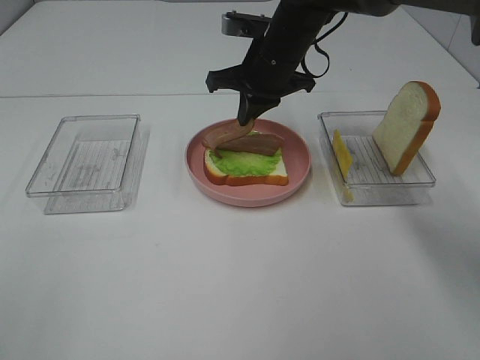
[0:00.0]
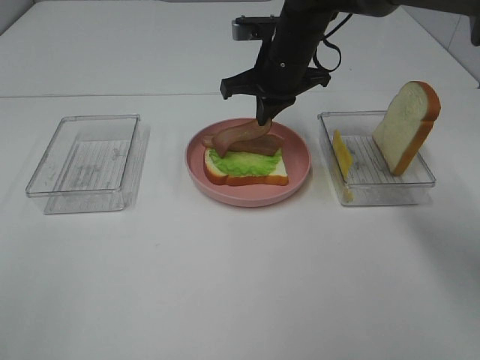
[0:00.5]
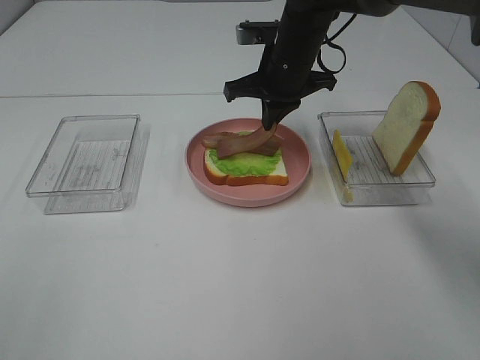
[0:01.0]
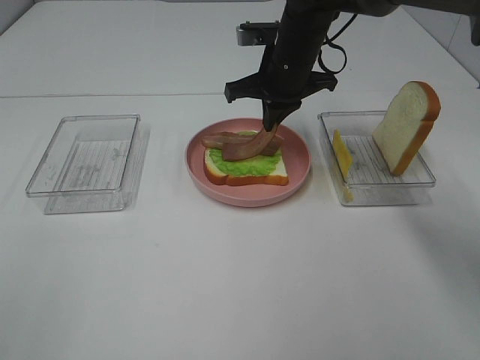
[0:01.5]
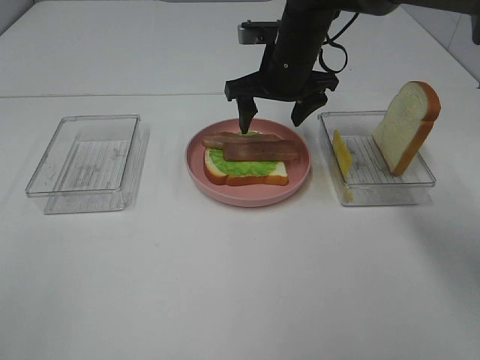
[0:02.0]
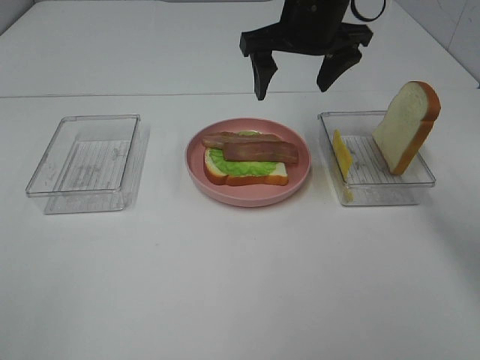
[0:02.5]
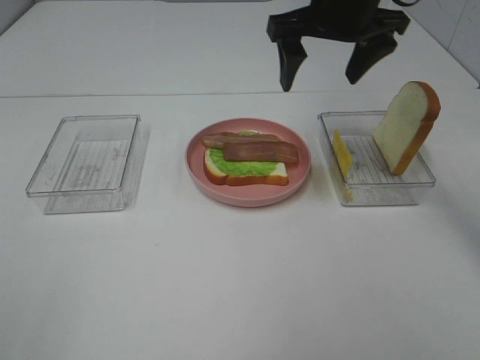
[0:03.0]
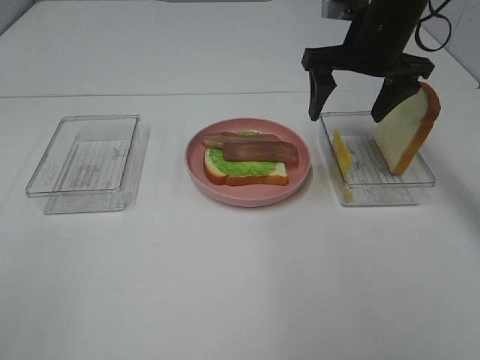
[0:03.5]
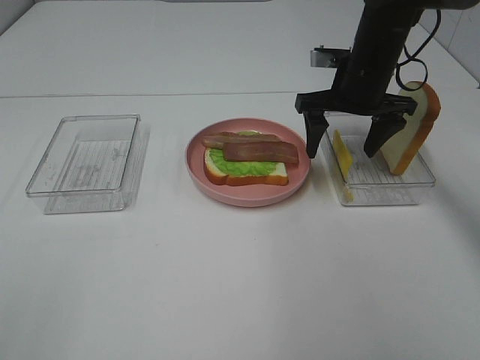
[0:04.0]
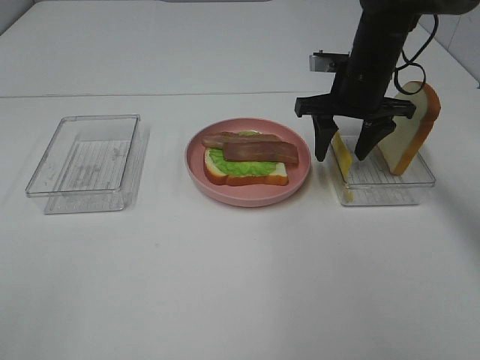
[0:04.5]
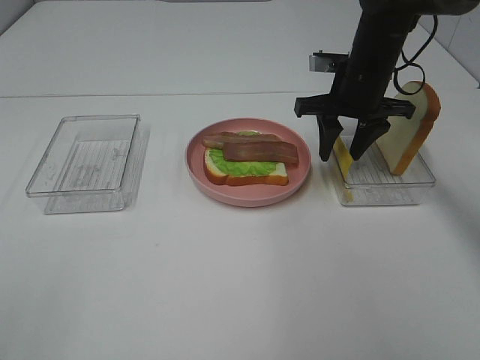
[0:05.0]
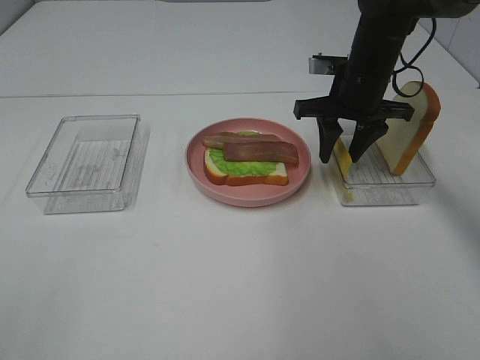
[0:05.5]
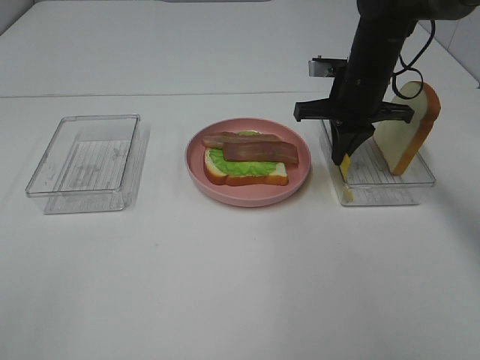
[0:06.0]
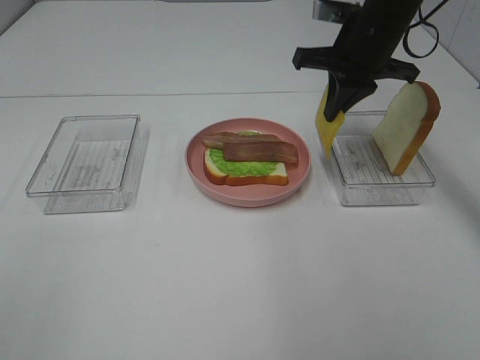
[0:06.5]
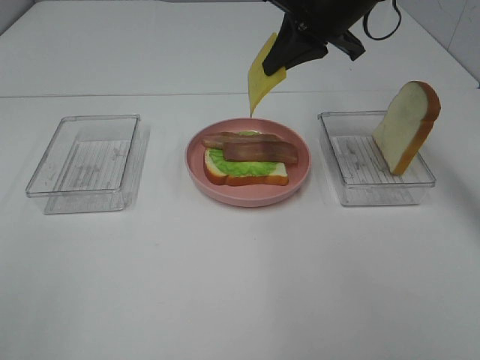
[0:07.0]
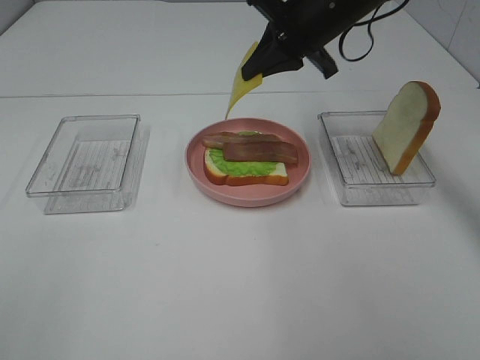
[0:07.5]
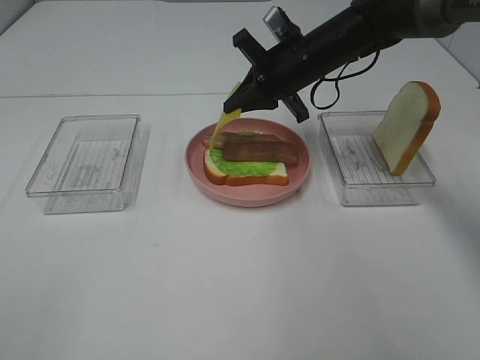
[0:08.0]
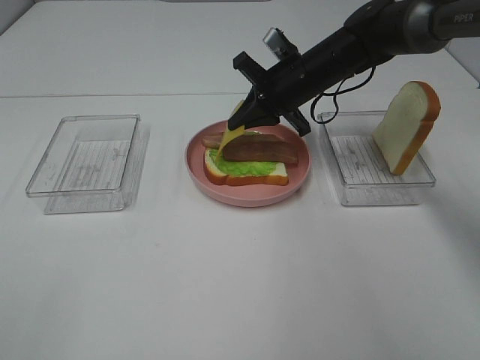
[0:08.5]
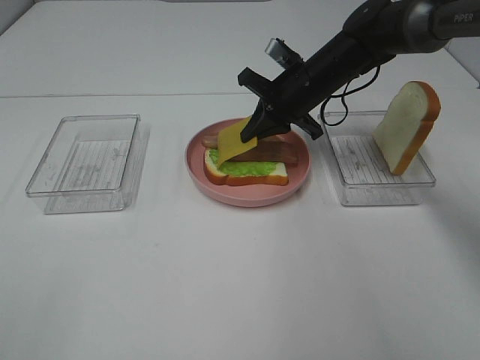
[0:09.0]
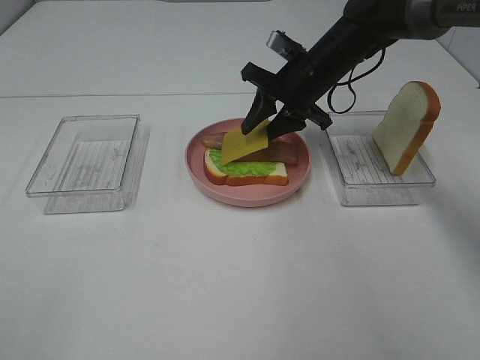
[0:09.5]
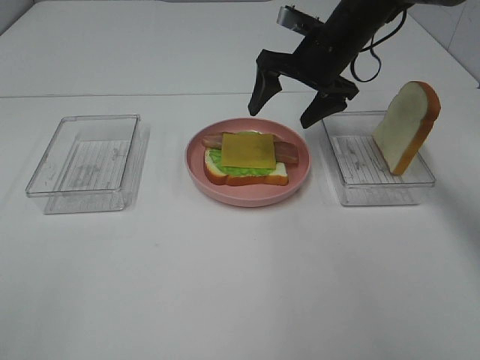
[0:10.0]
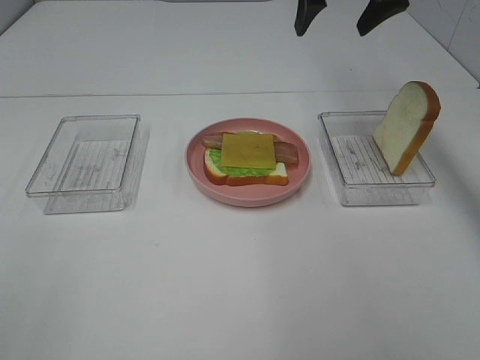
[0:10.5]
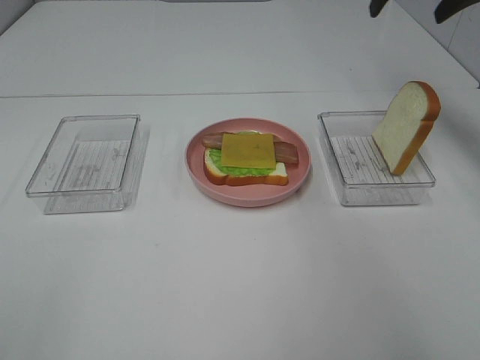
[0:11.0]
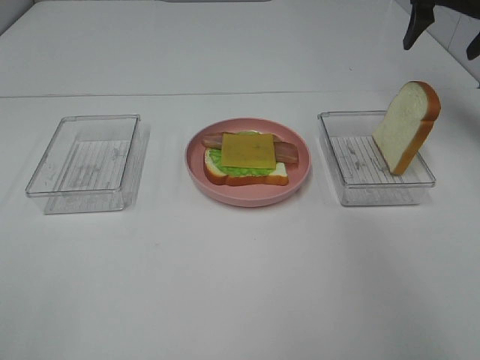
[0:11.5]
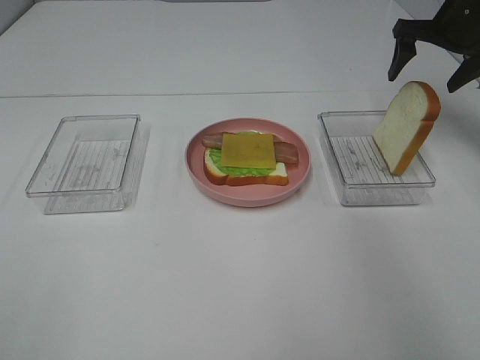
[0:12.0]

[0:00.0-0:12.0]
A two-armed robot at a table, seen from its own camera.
Task of the whole recording: Make sandwiches.
Step, 0:00.0 to 0:02.0: Right hand:place bacon on bacon.
Step, 0:02.5 to 0:06.0: Right hand:grab the cheese slice.
Step, 0:06.5 to 0:09.5: Right hand:place the cheese slice on top of the bacon.
0:00.0 to 0:02.0: The right gripper opens its fingers.
0:02.0 to 0:04.0: The right gripper moves to the right, approximately 10 cm, and goes upward and returns, some 10 cm each way.
0:04.0 to 0:06.0: The right gripper closes its fingers.
0:06.0 to 0:08.0: The right gripper heads to the left, covering some 5 cm, and moves about 10 cm upward and comes back.
0:08.0 to 0:10.0: The right gripper opens its fingers.
0:10.0 to 0:12.0: The right gripper moves to the right, about 20 cm.

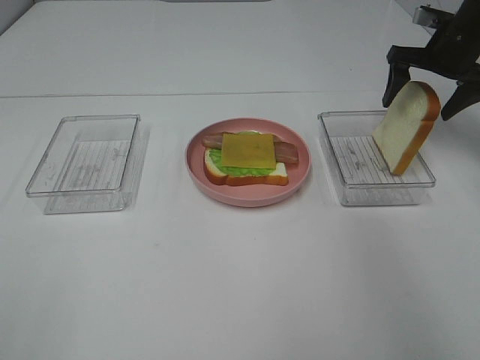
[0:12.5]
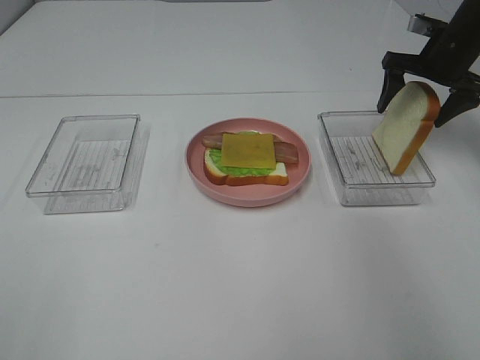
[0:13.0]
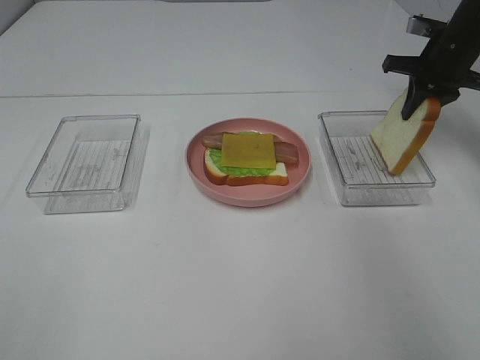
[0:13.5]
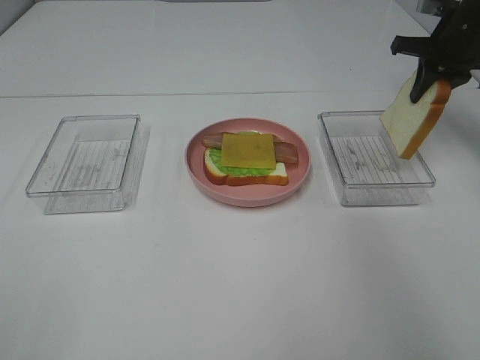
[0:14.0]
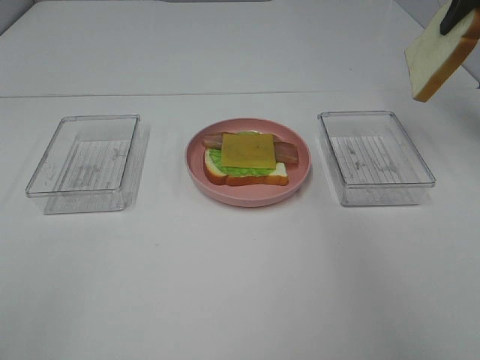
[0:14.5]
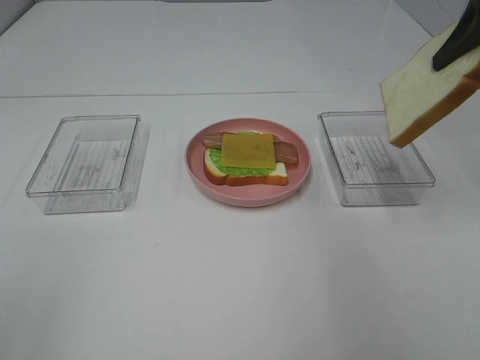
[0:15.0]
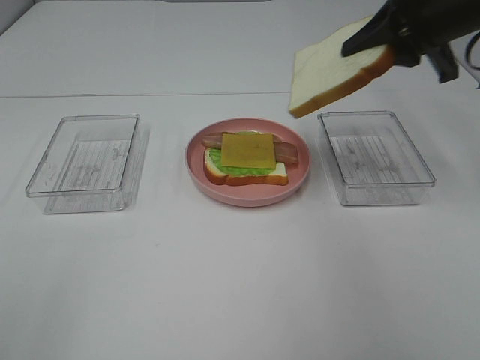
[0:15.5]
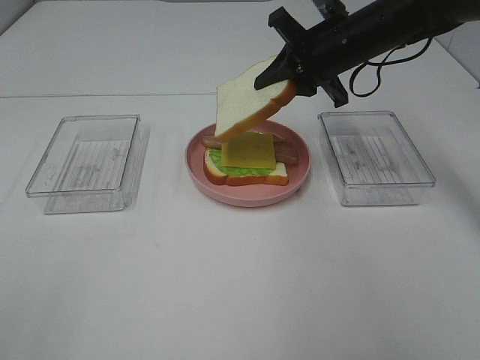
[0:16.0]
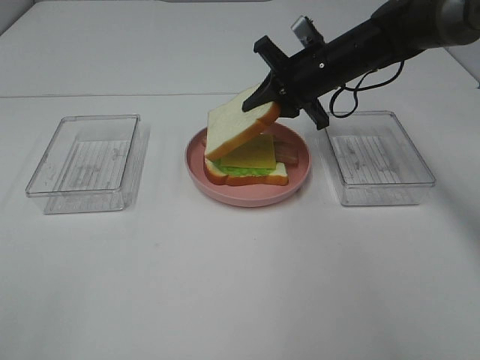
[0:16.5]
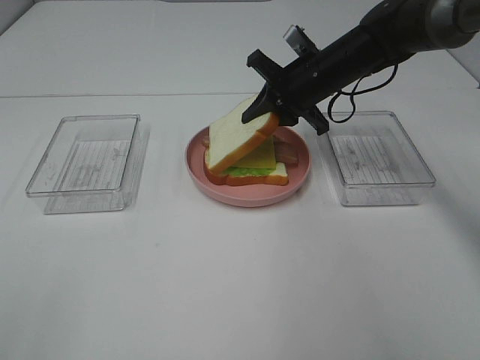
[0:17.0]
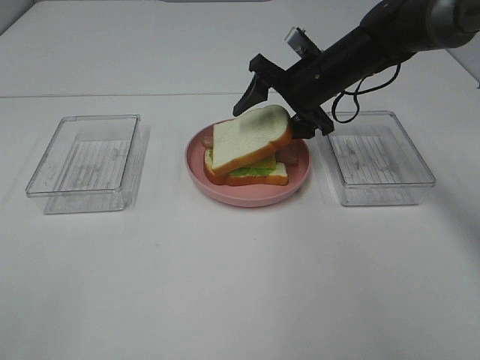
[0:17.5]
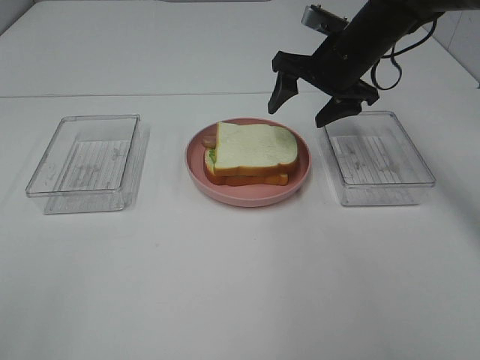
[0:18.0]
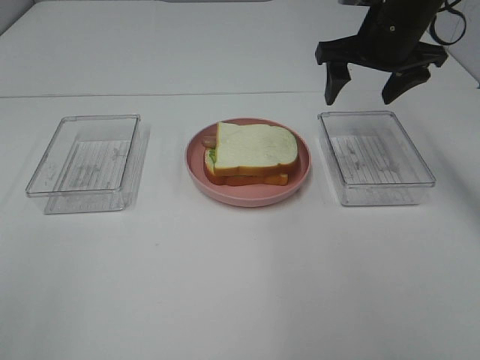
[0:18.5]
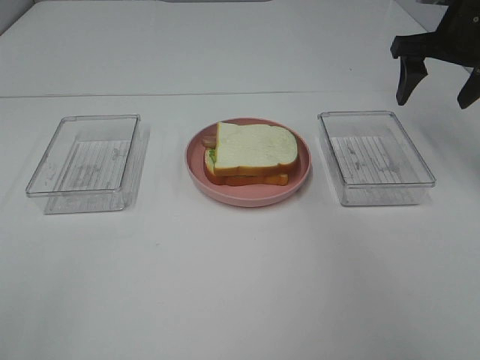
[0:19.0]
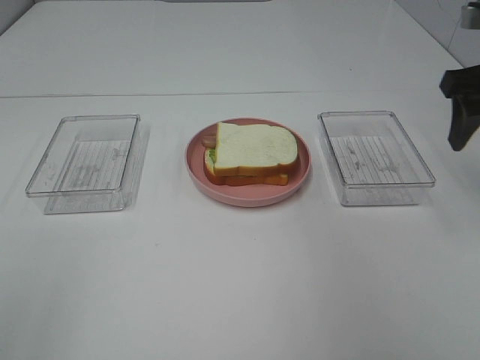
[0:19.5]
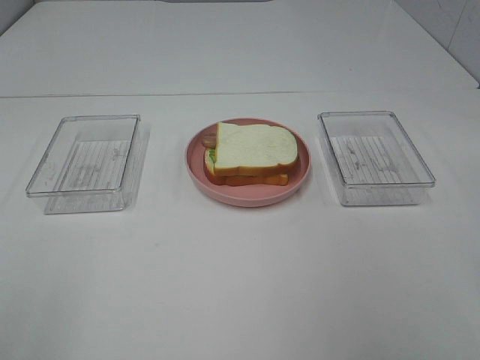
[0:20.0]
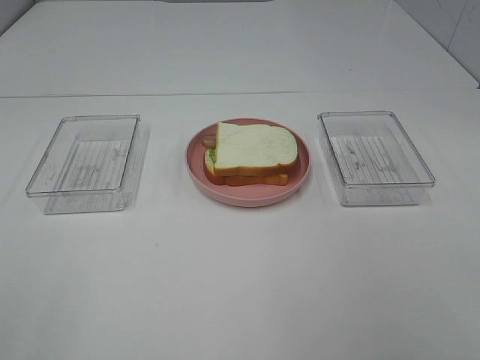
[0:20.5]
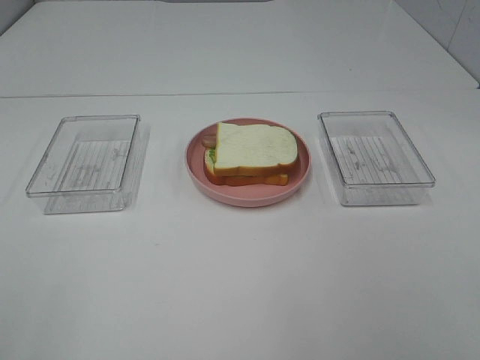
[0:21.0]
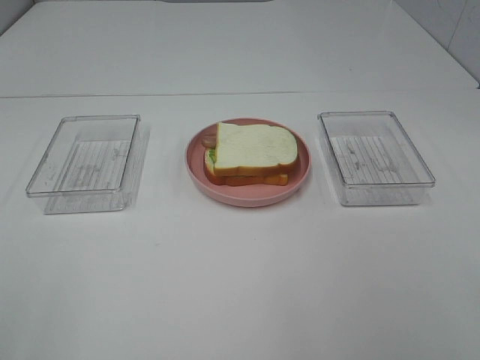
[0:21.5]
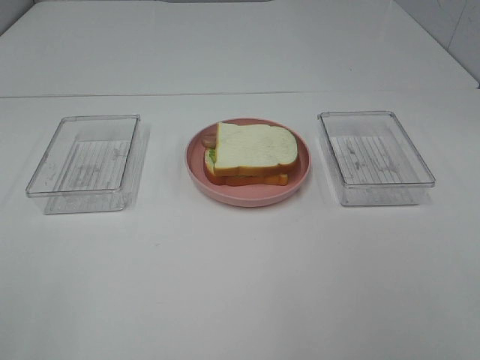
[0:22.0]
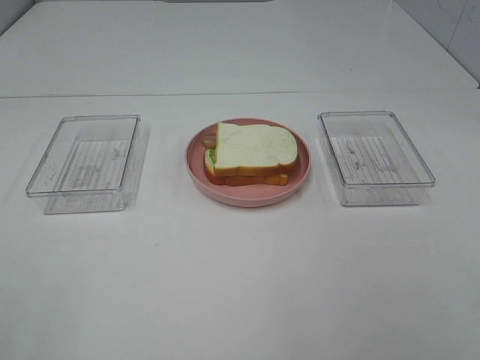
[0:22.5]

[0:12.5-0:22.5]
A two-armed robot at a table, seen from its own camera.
Task of the whole recording: Make sandwiches.
Step, 0:14.0 to 0:17.5: Right hand:place the bread slice on the cheese slice.
0:12.5 to 0:14.5: The right gripper heads upward and backward, covering roughly 15 cm, and closes its fingers.
0:14.5 to 0:16.5: The right gripper shifts roughly 25 cm to the left and downward.
0:16.5 to 0:18.5: The right gripper moves upward and to the right, some 10 cm, and opens.
0:18.5 to 0:20.5: The right gripper is displaced backward by approximately 40 cm.
